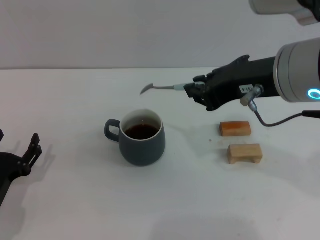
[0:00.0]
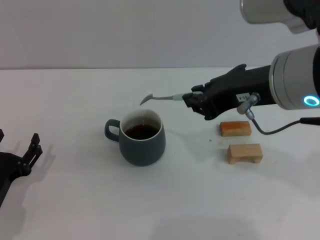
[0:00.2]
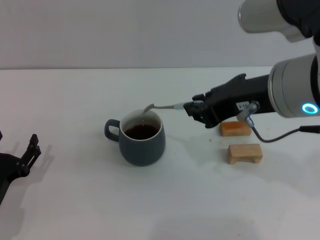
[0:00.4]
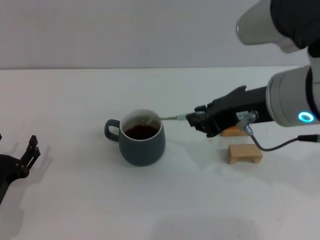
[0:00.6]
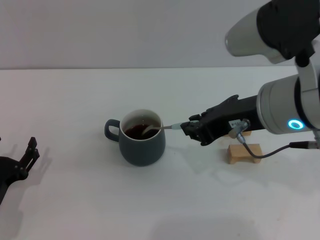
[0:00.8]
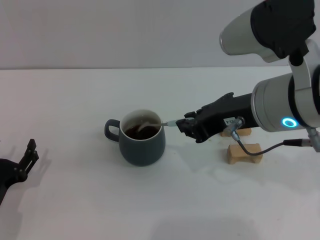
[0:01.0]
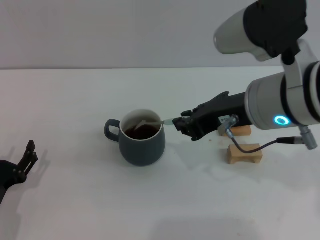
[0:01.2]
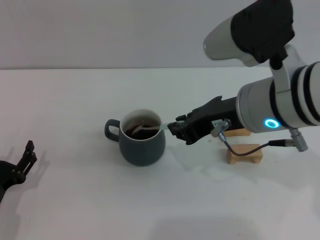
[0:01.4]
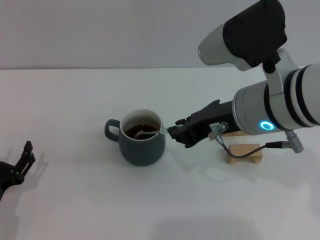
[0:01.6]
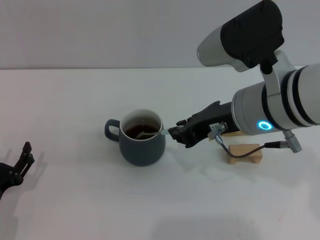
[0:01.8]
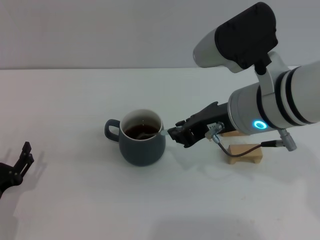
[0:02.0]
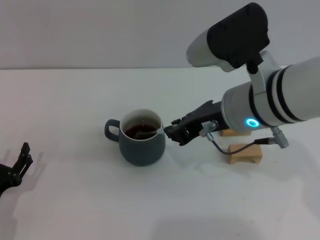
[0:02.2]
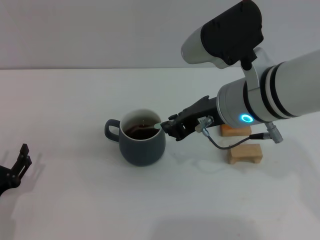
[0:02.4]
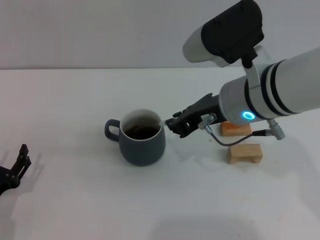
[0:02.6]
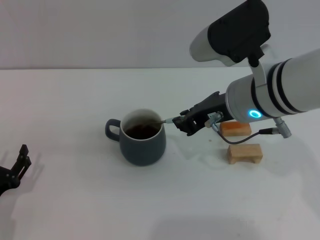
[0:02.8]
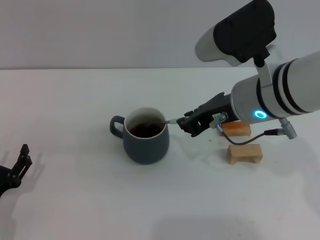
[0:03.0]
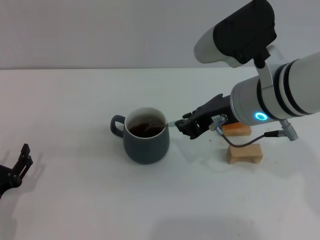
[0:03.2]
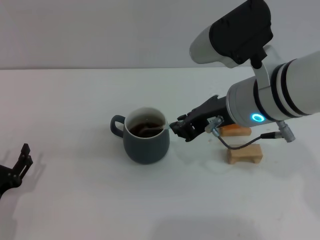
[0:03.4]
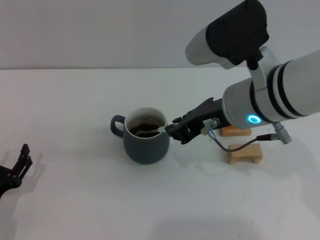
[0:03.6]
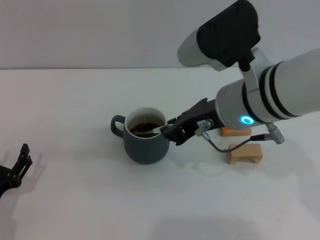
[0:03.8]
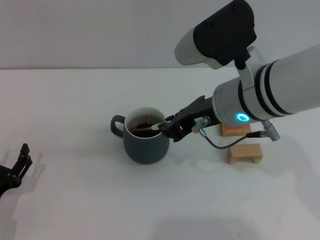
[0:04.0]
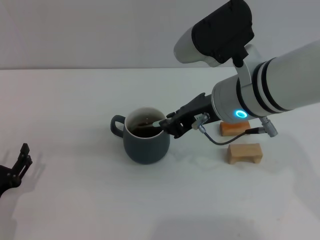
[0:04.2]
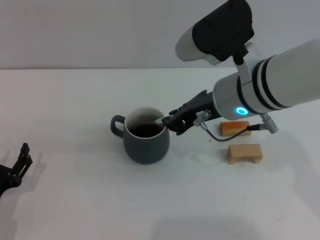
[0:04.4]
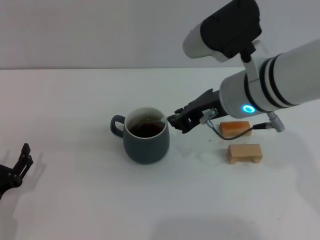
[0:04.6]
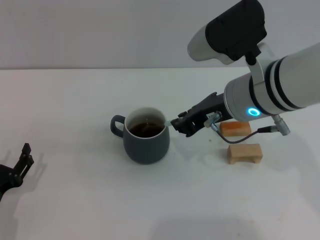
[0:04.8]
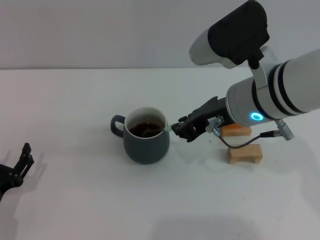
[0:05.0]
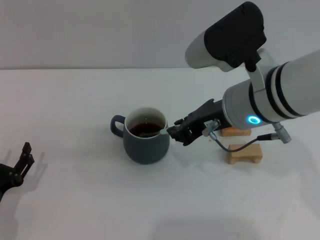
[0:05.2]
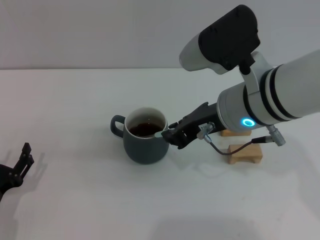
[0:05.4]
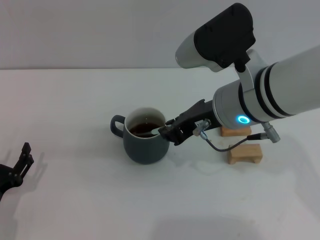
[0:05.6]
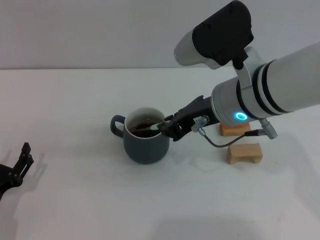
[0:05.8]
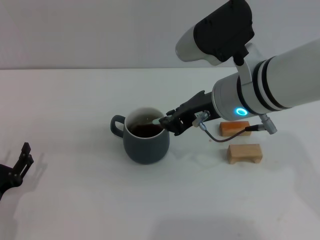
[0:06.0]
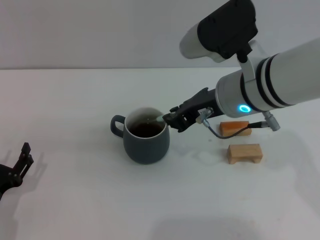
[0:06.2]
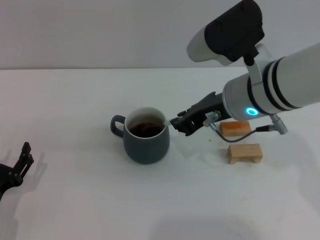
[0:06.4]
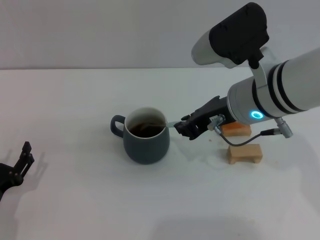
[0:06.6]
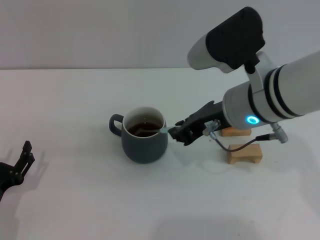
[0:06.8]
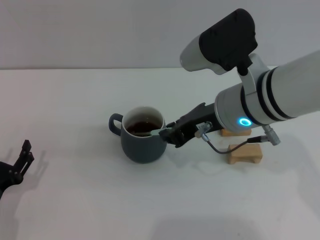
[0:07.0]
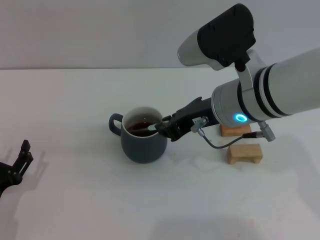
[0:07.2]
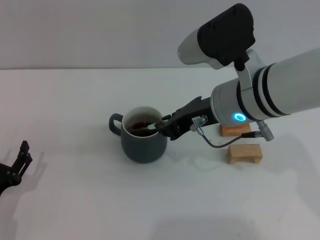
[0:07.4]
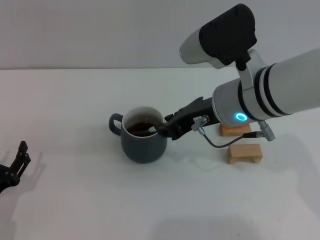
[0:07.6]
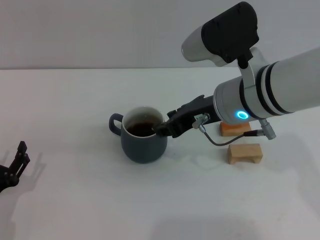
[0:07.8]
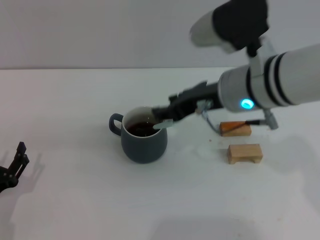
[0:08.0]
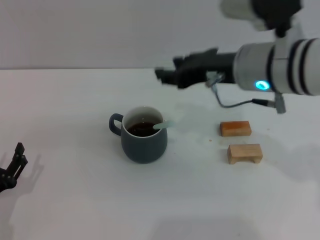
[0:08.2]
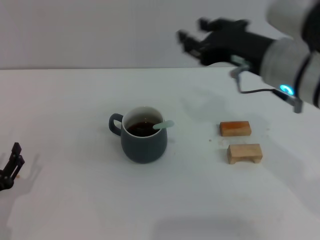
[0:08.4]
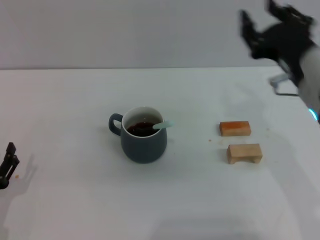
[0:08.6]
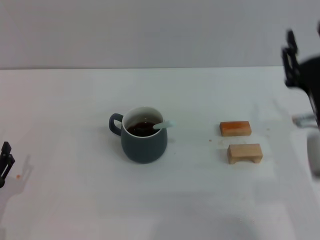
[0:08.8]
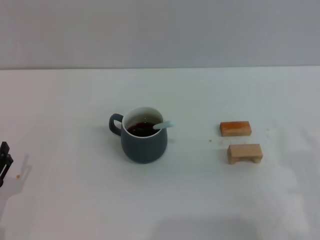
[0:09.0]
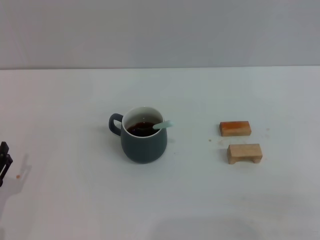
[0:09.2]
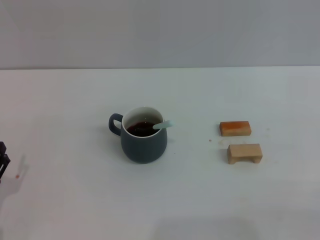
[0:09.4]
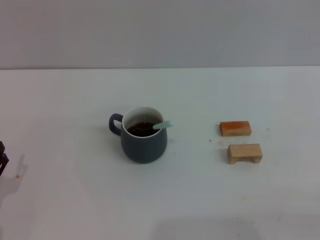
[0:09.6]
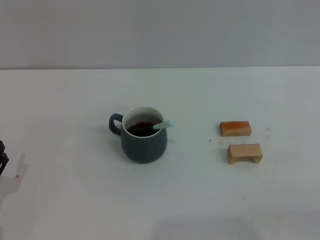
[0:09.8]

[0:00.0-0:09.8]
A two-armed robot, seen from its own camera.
Task of the whole recording: Move the grey cup to the center, lift the blue spoon, stir it three times in the cup, and put the spoon into the cup.
Step, 0:00.0 to 0:07.8: Stir the coffee in the cup with the right gripper.
0:00.0 to 0:01.4: The right gripper moves some 5 cm.
0:01.4 to 0:07.0: The grippers move only a little.
0:07.0 to 0:08.4: The right gripper is displaced to the right by some 5 cm, and opens its fingers.
0:08.4 to 0:09.8: The right gripper goes roughly 30 cm backward, downward and to the right.
